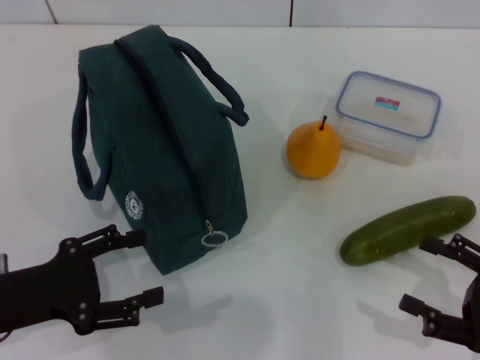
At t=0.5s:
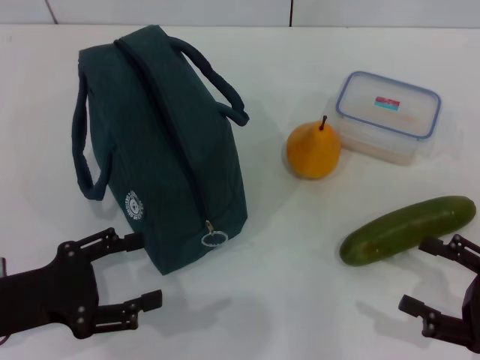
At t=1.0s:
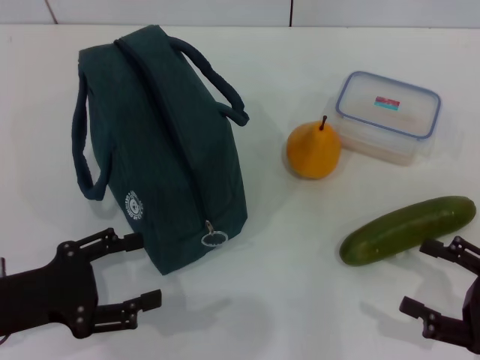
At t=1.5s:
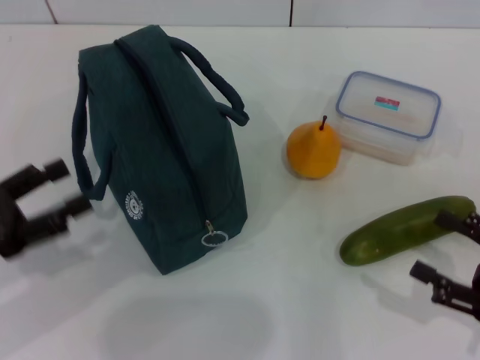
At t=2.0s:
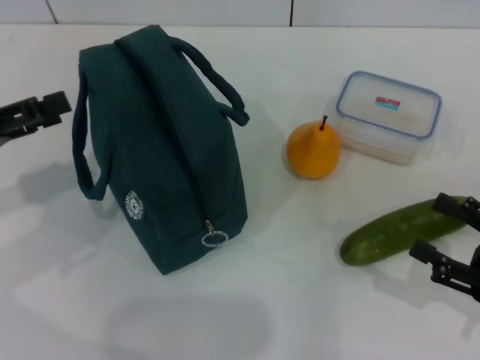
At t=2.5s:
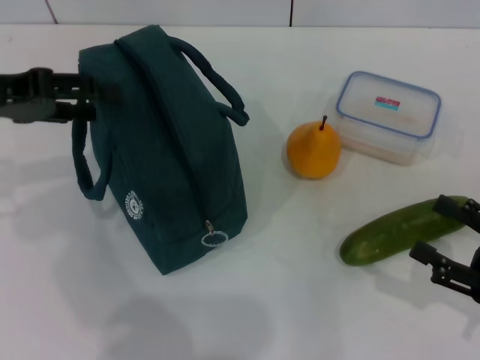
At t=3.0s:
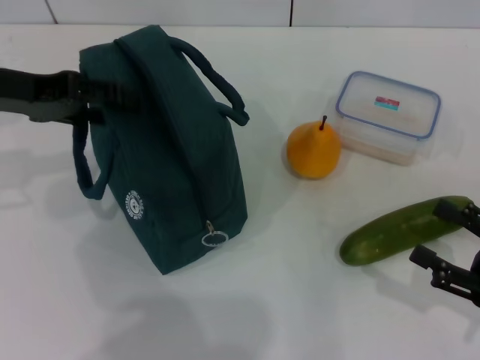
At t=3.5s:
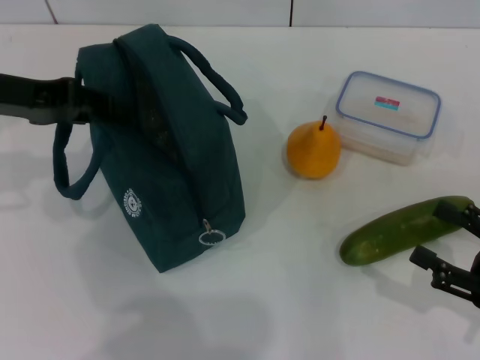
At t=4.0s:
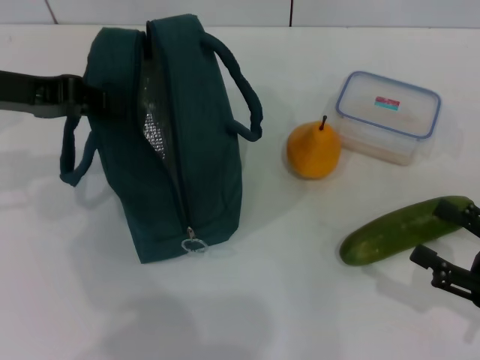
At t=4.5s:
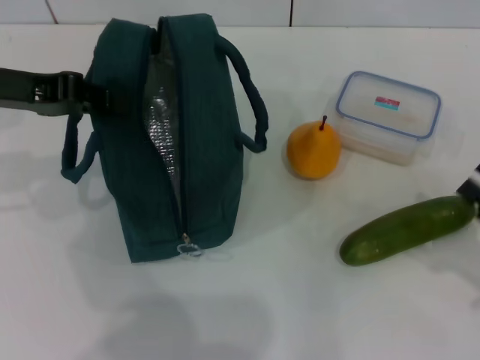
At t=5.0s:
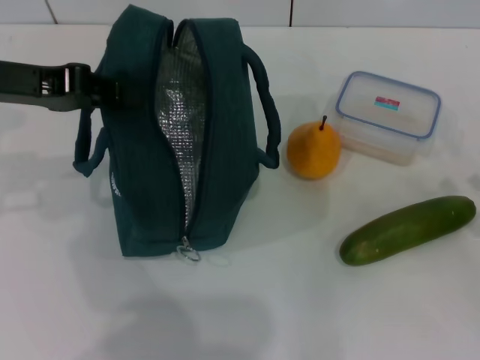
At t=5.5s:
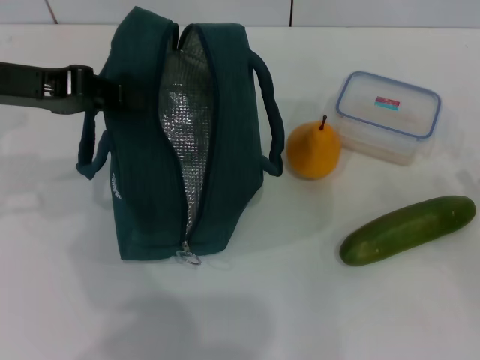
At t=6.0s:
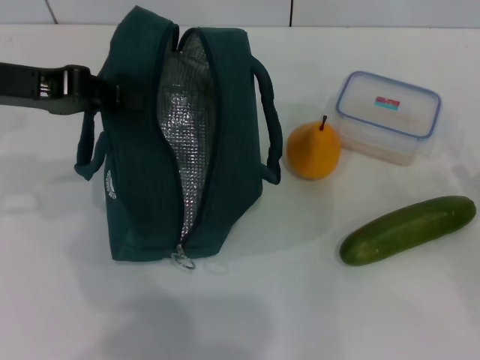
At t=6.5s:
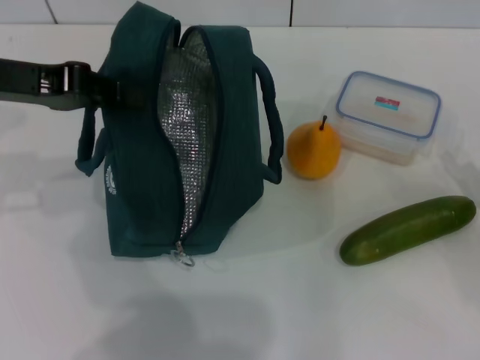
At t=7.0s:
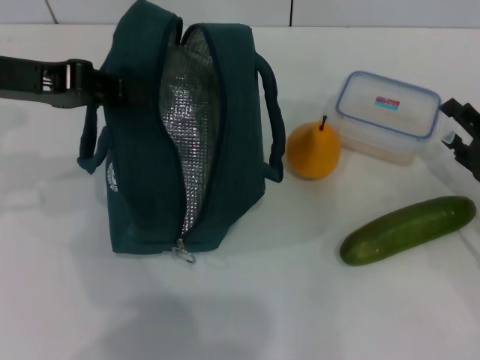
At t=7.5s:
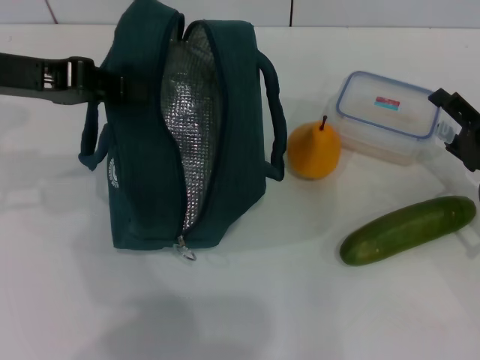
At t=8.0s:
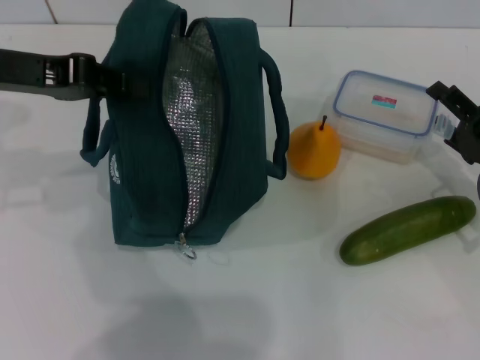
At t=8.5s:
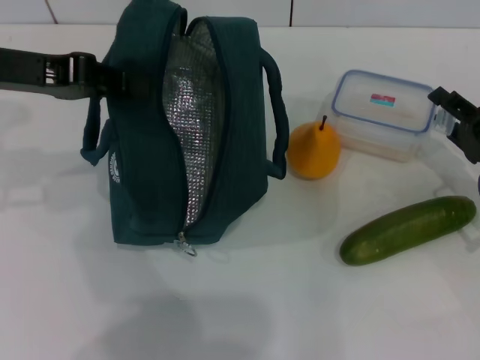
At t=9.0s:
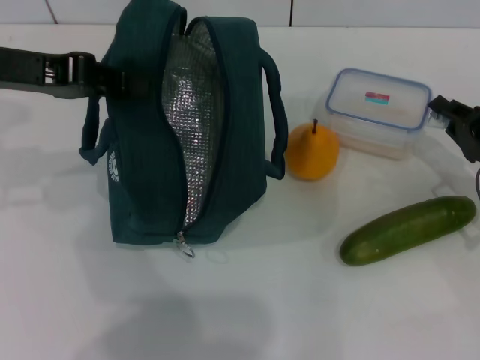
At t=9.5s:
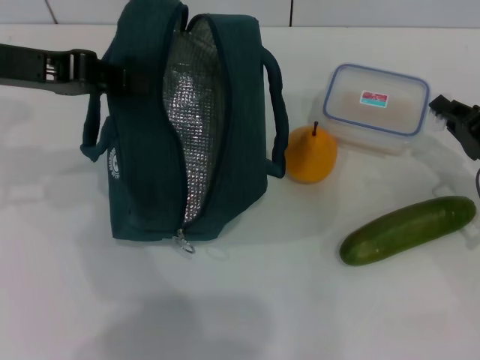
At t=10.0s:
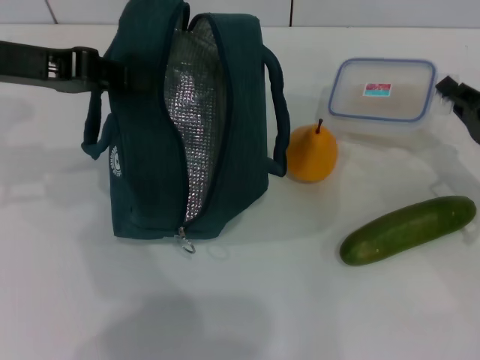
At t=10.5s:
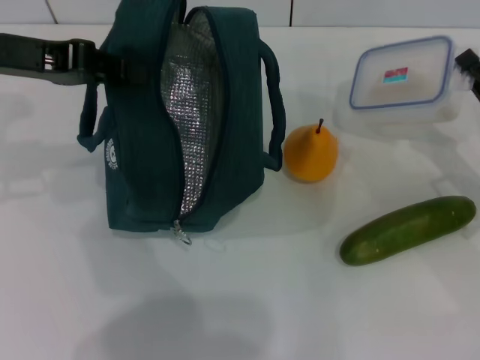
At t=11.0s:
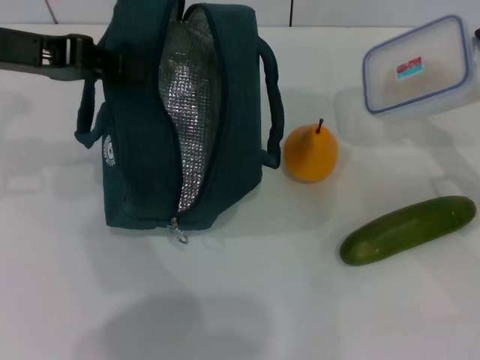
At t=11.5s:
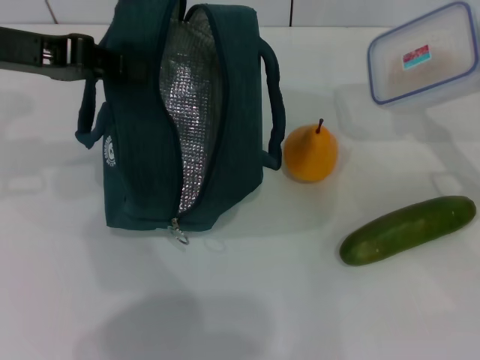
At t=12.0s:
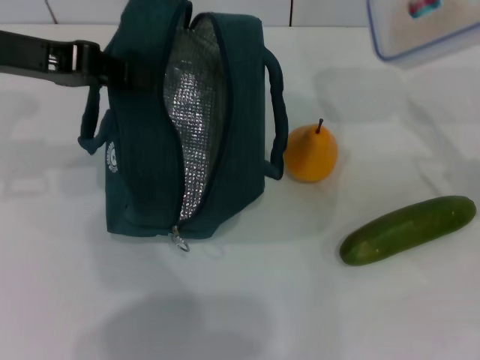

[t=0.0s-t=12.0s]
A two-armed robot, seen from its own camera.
Step, t=0.0s to t=4.5s: Hold the lunch bag with your left hand.
Step, t=5.0s to t=9.0s: Pick up the lunch box with your right hand.
t=0.0s to t=2.0s: The left gripper is displaced upward, forward and to the left by approximately 10 cm.
t=2.0s to t=4.0s: The left gripper heads forward, to the right and upward, covering approximately 10 cm, and closes.
t=6.0s to t=8.0s: The right gripper goes about 10 cm forward and to the left.
t=8.0s to t=10.0s: The right gripper closes its fingers.
t=10.0s to t=12.0s: The right gripper shifts roughly 5 cm upward.

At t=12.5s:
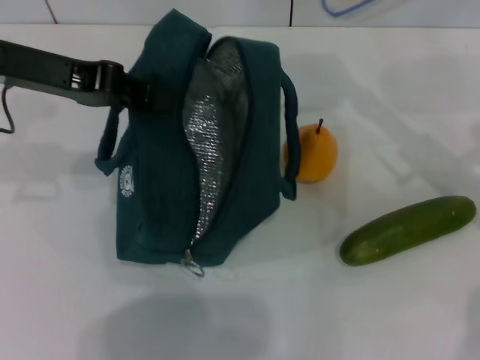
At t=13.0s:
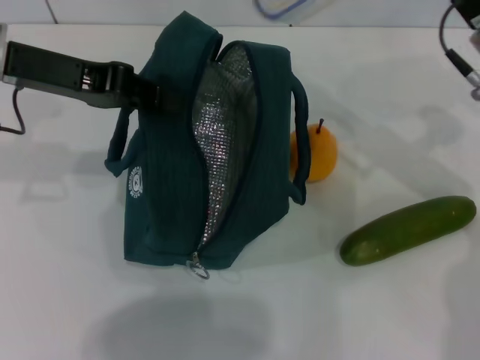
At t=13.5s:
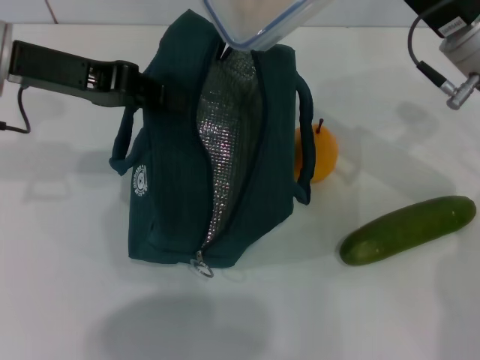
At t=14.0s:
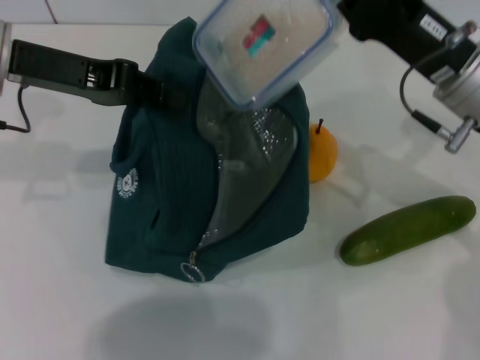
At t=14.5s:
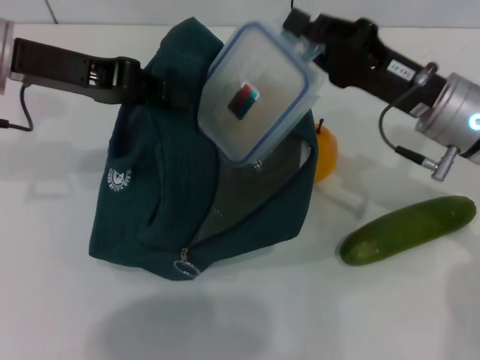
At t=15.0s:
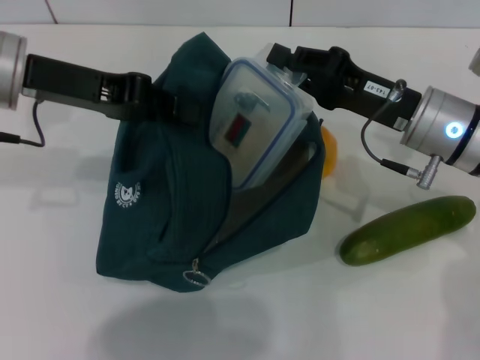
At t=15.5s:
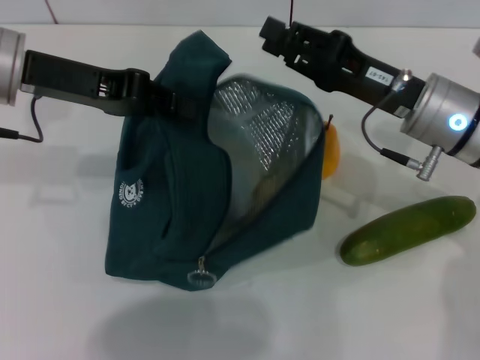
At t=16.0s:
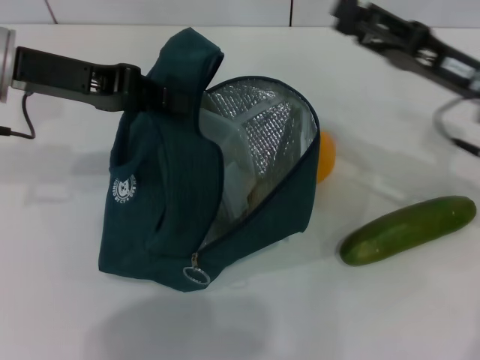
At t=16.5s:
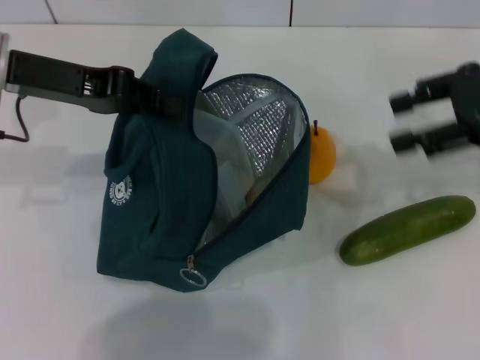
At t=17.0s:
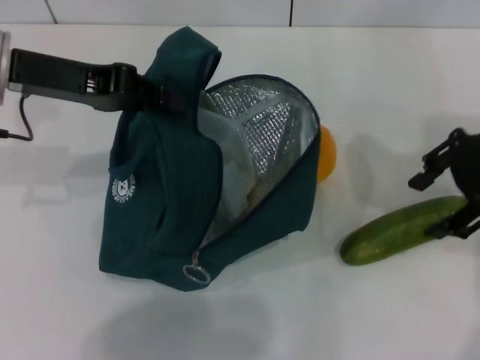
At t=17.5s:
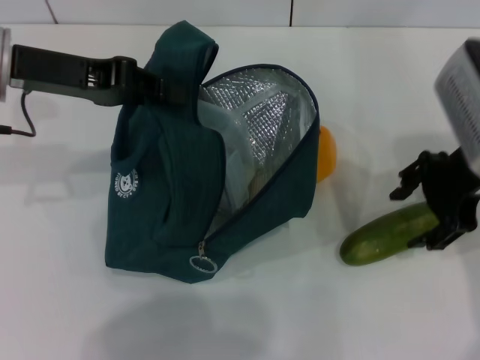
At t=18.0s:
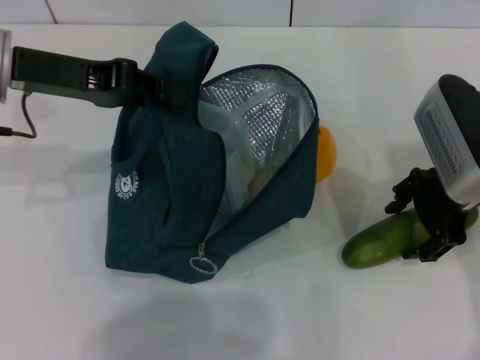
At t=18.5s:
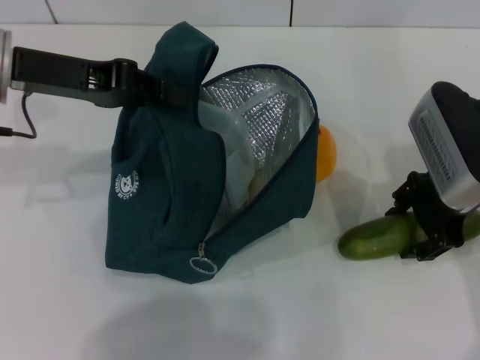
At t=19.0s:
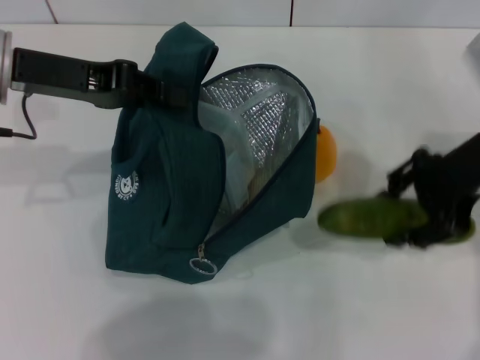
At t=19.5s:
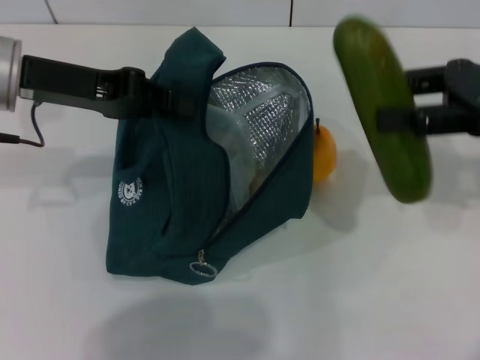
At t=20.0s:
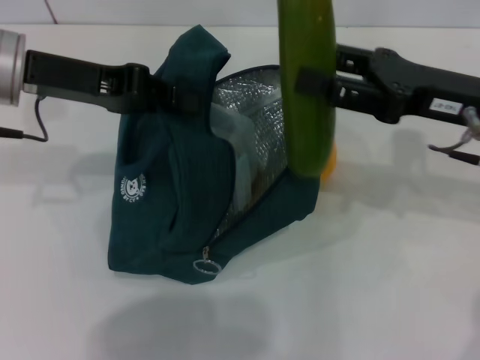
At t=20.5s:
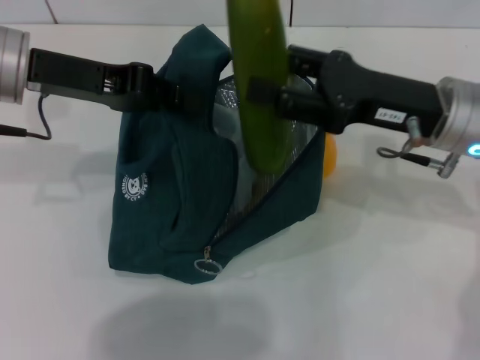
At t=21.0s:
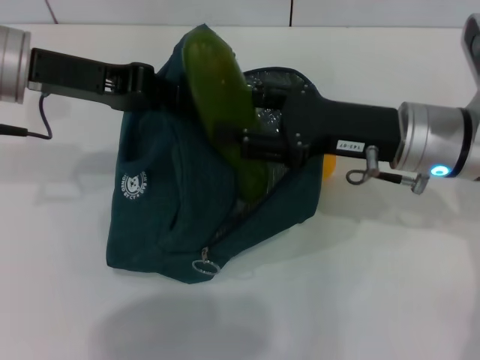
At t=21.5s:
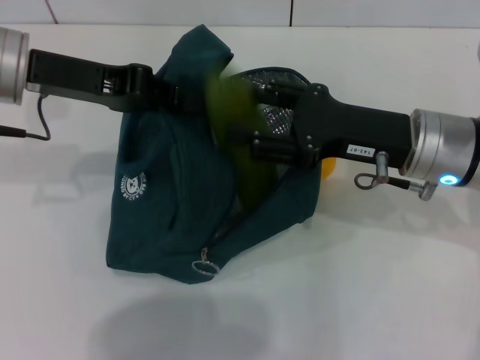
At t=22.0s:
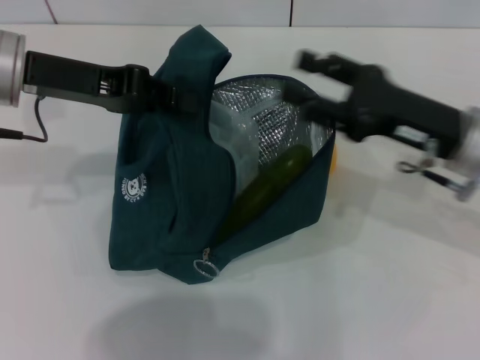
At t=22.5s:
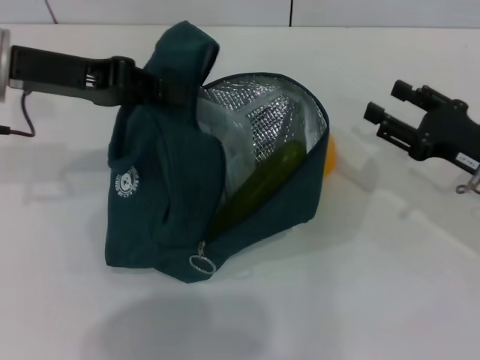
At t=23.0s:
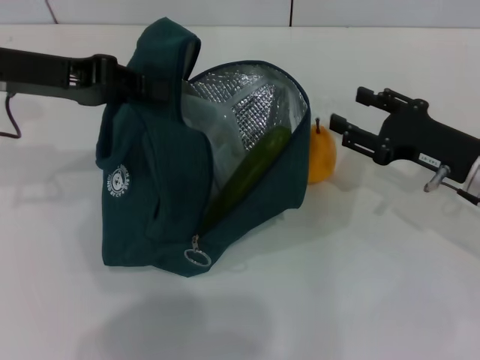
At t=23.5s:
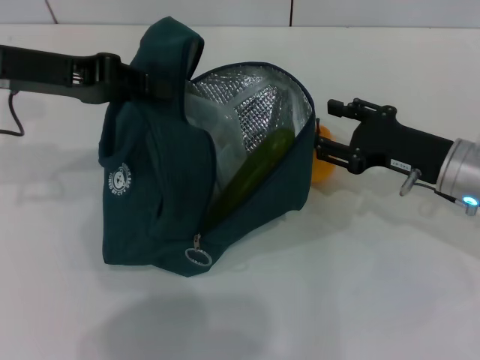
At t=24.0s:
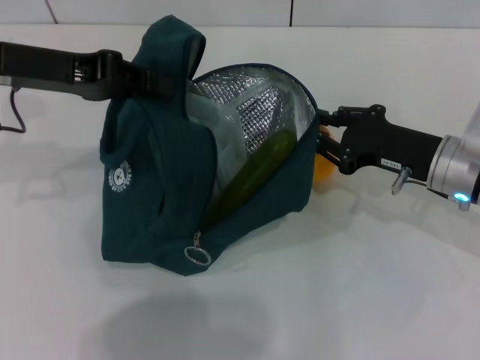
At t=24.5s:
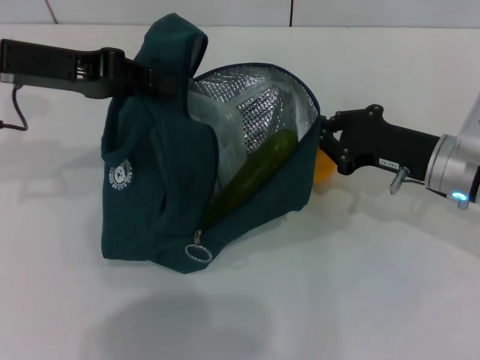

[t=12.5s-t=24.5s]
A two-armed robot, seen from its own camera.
Step, t=12.5s to t=15.0s: Place the lunch box into the lunch bag with your right hand.
Step, t=15.5s to t=18.5s: Pick up the cucumber with your right hand.
Step, t=19.0s to t=21.5s: Put the cucumber into the lunch bag with your right hand.
Step, t=22.0s to t=24.0s: Grab the pear with your right hand.
t=12.5s to t=14.5s: The right gripper shifts some 5 cm to the left.
t=14.5s to t=16.5s: The right gripper goes some 15 cm upward and to the right, and opens.
t=16.5s to t=18.5s: The right gripper shifts some 10 cm to the left and downward.
t=18.5s to t=20.5s: The right gripper travels to the right and back again, some 10 cm each way.
t=20.5s to t=22.5s: The right gripper moves to the right and downward, some 10 cm.
t=22.5s to t=24.5s: The right gripper goes about 5 cm to the left, and closes.

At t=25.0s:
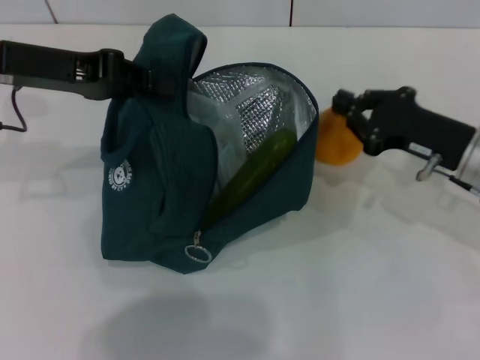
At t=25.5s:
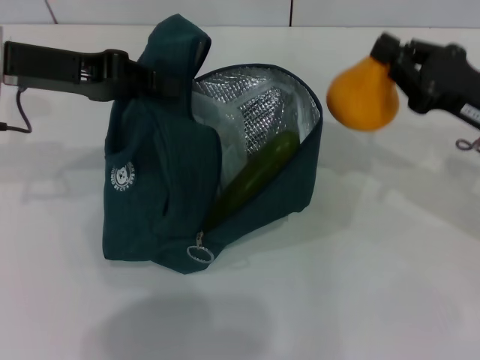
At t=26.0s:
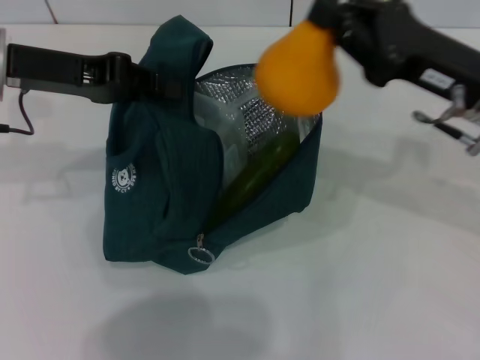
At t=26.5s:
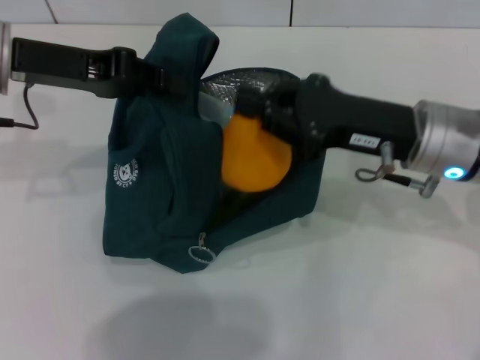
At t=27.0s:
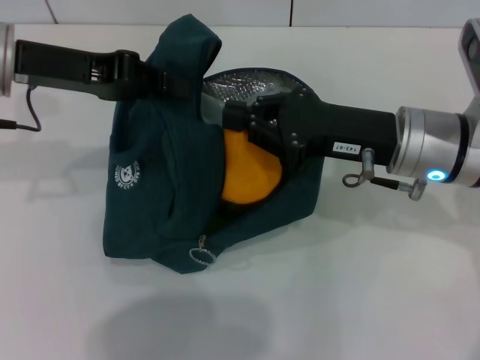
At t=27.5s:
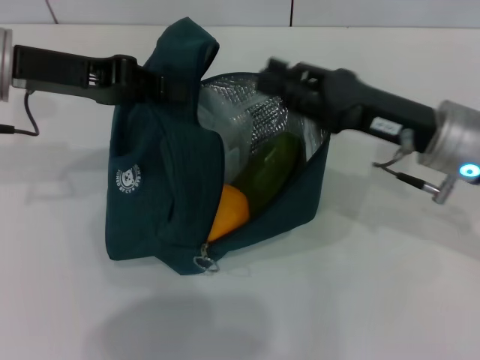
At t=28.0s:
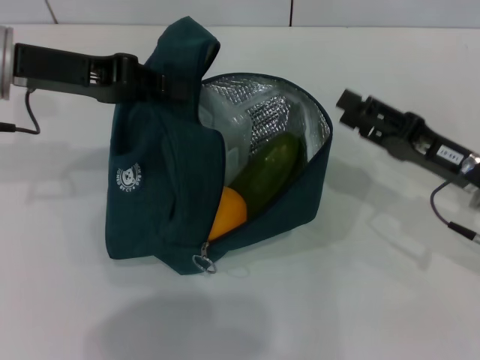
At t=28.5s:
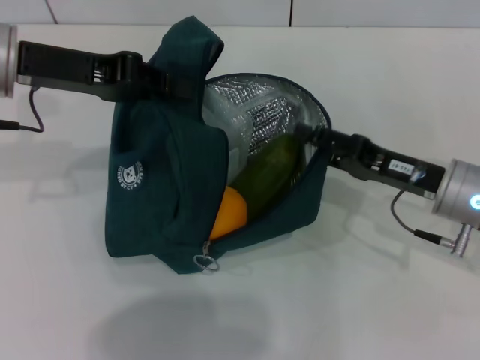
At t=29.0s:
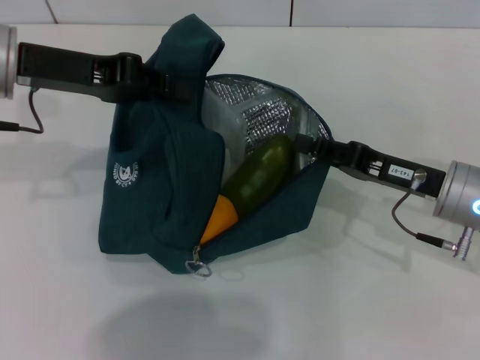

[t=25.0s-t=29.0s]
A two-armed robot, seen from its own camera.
t=25.0s to t=27.0s: The right gripper shifts roughly 10 cm to the left.
t=27.0s to t=29.0s: The right gripper is displaced downward and to the right by some 10 cm, and opens.
